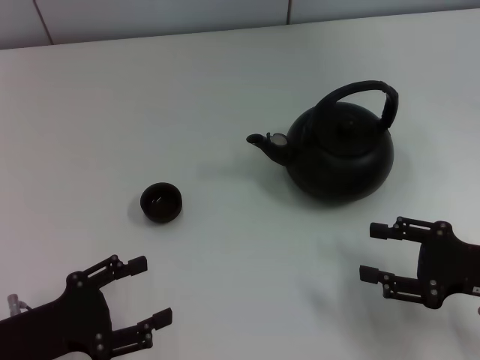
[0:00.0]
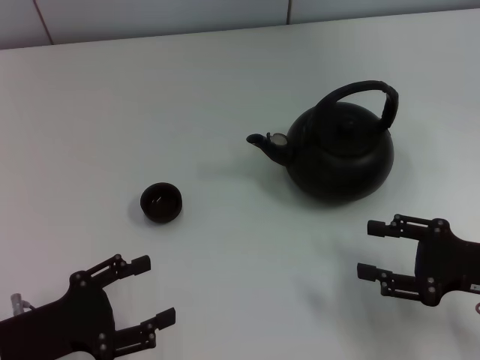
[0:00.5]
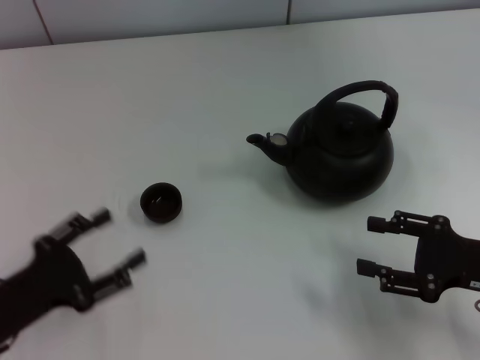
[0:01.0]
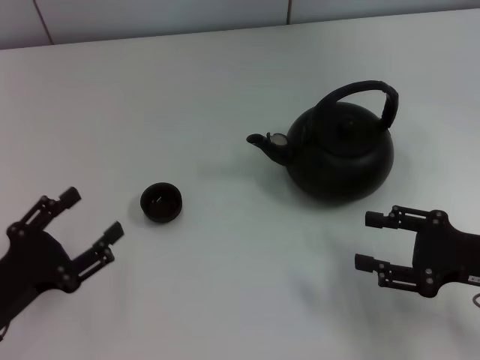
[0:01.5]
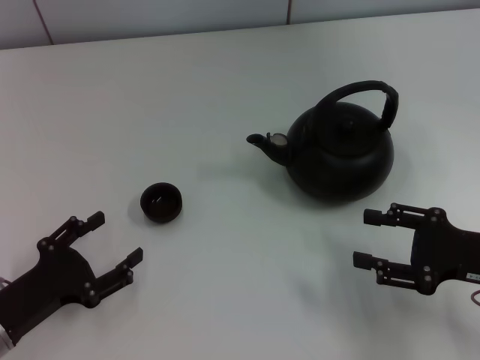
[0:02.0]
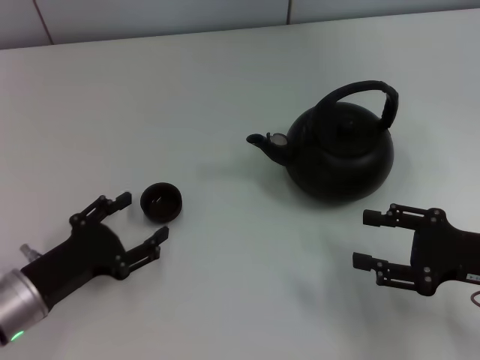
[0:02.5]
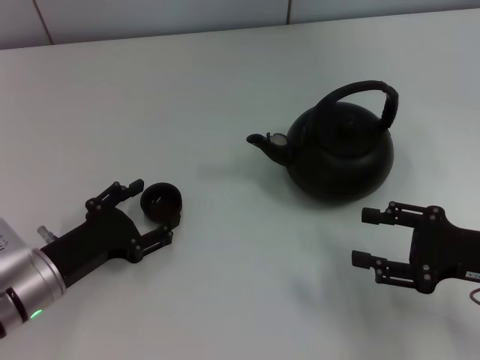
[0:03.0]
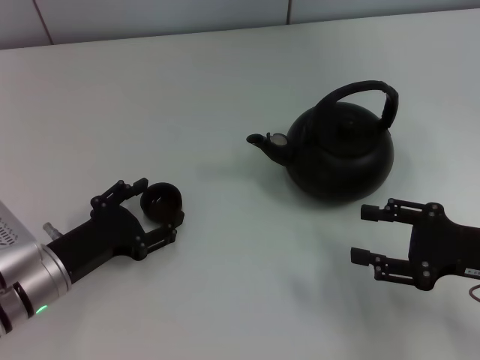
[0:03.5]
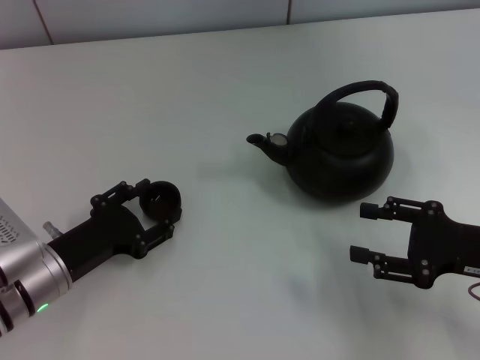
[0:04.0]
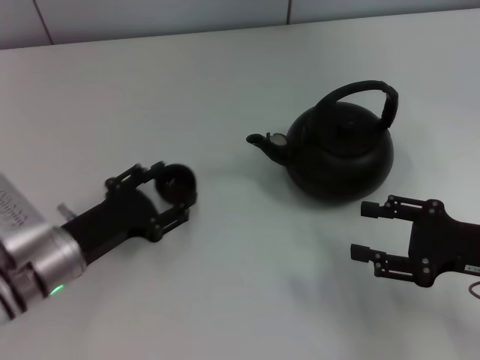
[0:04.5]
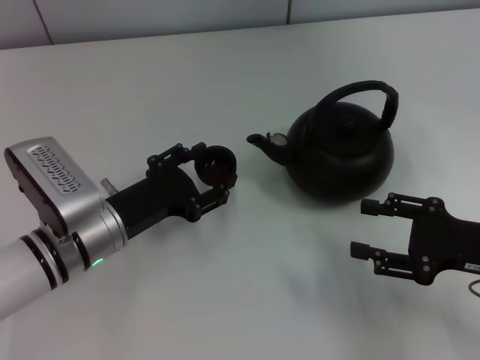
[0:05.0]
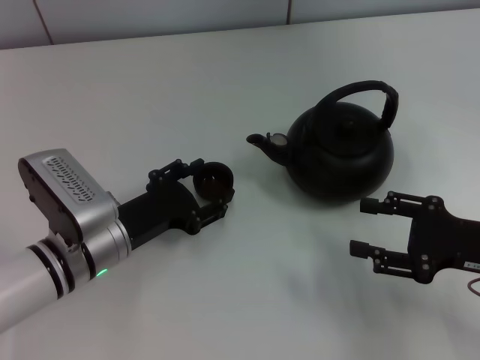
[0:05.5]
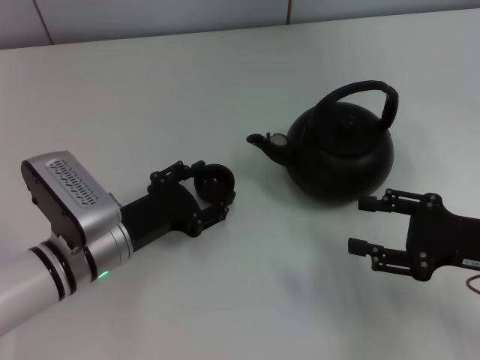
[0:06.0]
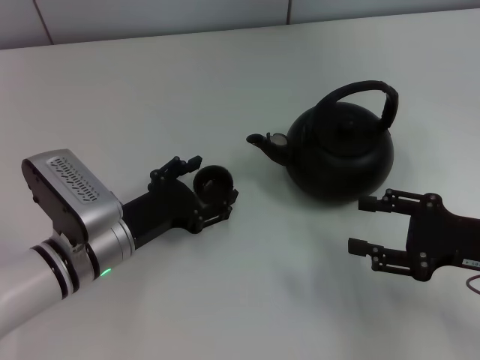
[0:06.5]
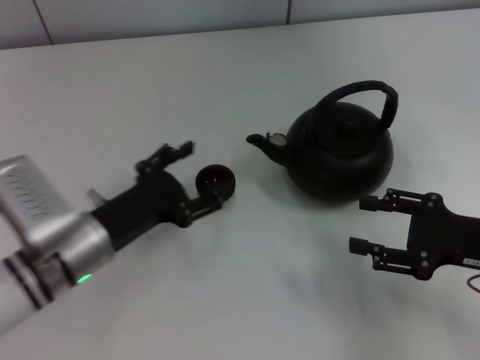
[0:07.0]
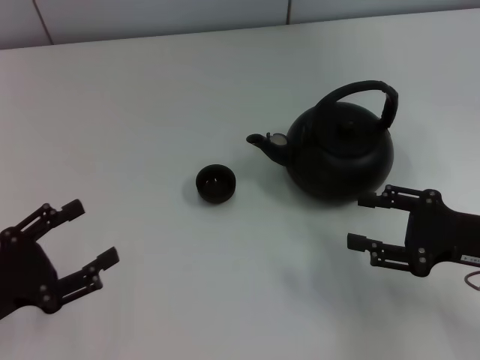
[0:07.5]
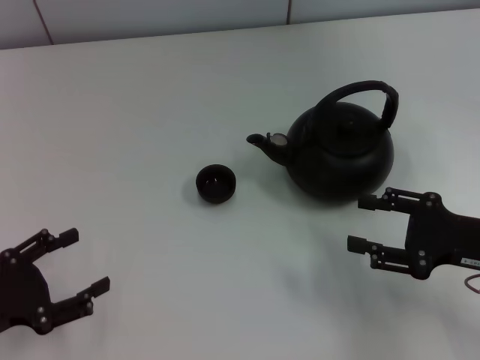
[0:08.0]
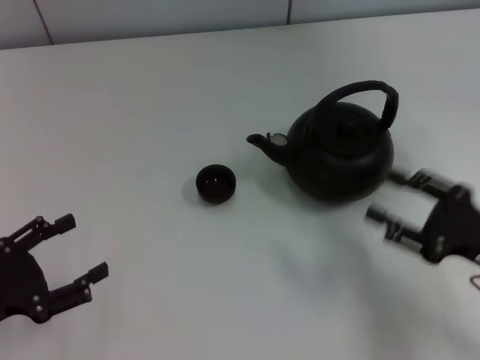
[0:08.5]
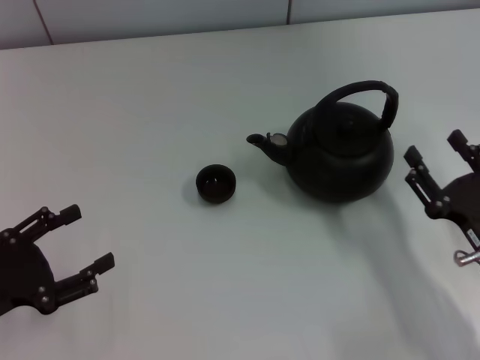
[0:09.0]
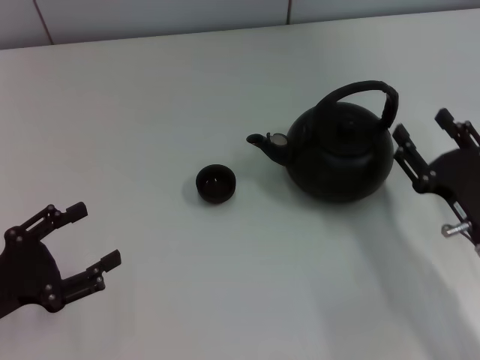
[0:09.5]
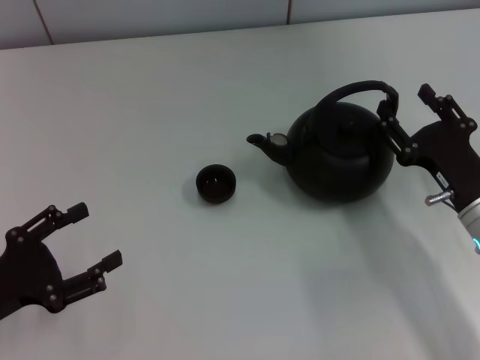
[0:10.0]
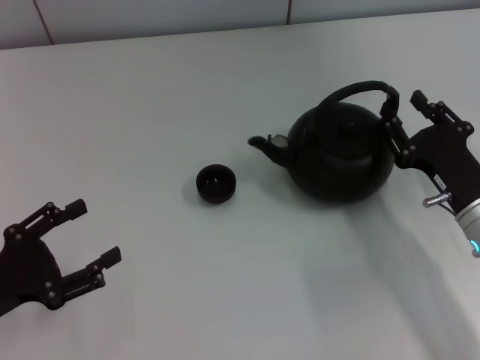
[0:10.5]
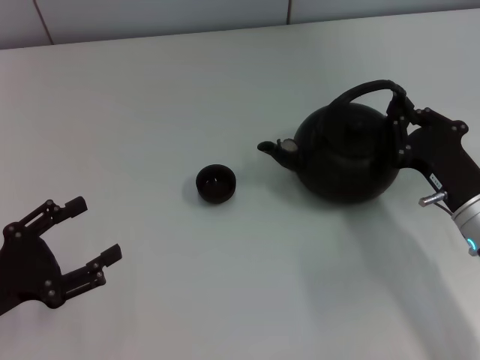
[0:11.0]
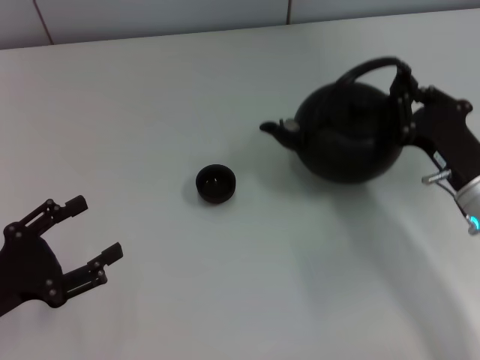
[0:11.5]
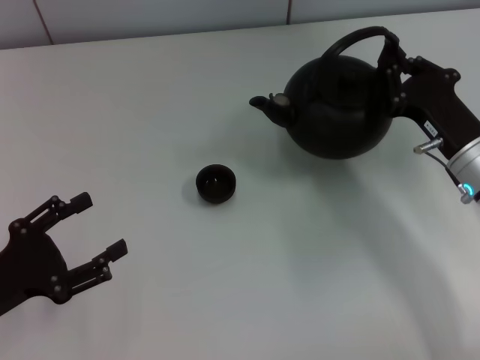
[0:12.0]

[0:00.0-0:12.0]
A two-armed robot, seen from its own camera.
Task of the whole recording: Grasp the handle of the teapot with one hand and pour tea into the teacup.
Step, 0:00.0 to 0:05.0: Pick up the teacup with the left gripper.
Step, 0:05.5 to 0:07.0: Place the teacup in the center of view with the left gripper.
Step, 0:07.5 to 0:12.0: Pick up the teapot with the right gripper.
0:02.0 to 0:04.0: The left gripper shifts roughly 10 cm forward and to the right, and closes its fingers.
0:04.0 to 0:06.0: The left gripper is displaced to the right by some 5 cm.
0:06.0 to 0:08.0: The left gripper moves to the left and backward, some 20 cm, and opens its fingers.
0:08.0 to 0:10.0: The right gripper moves roughly 5 cm.
0:10.0 to 0:12.0: The right gripper travels forward by about 5 cm, and closes up.

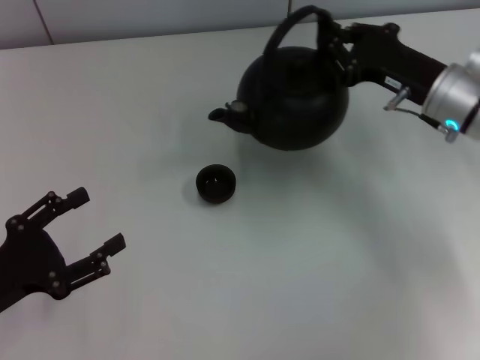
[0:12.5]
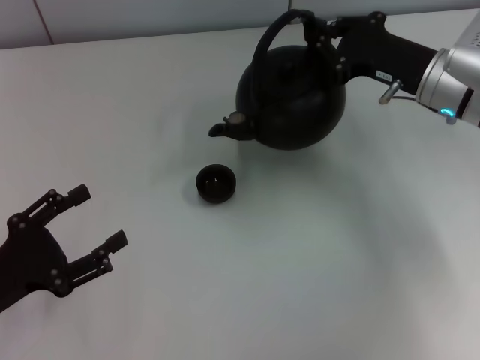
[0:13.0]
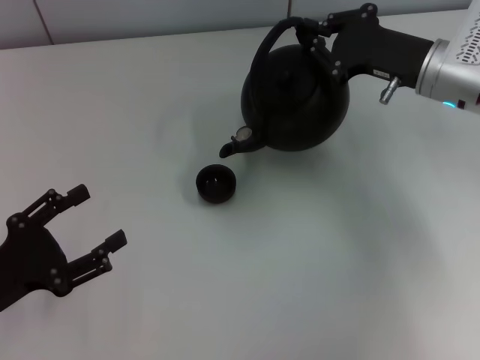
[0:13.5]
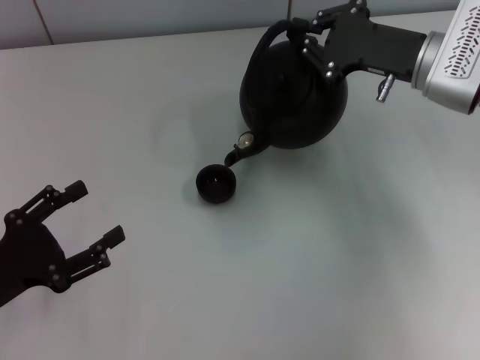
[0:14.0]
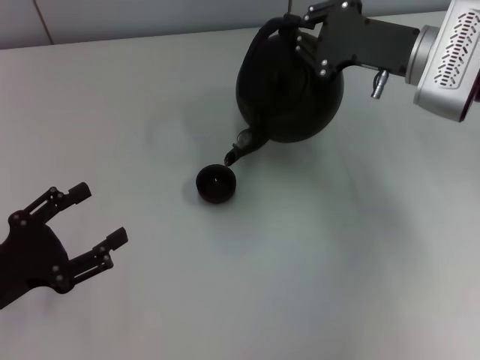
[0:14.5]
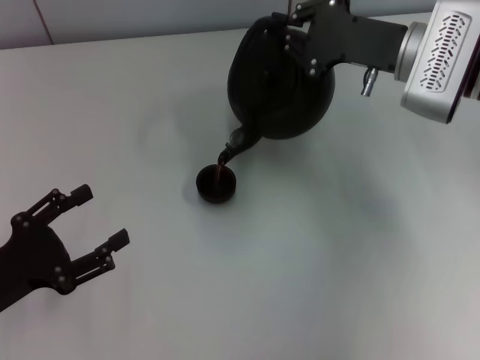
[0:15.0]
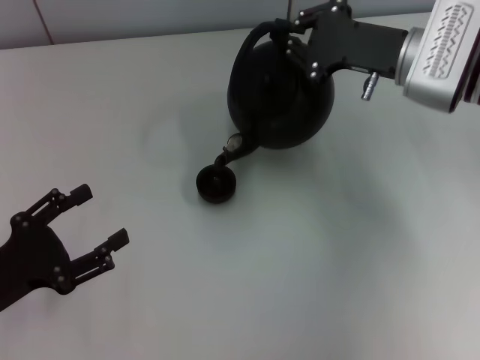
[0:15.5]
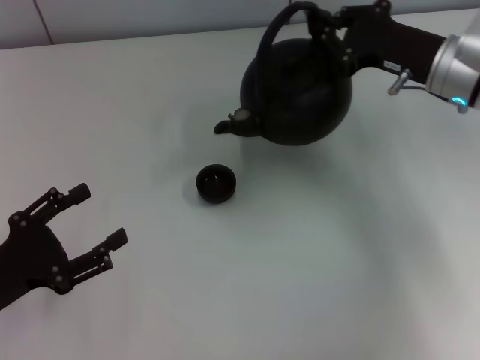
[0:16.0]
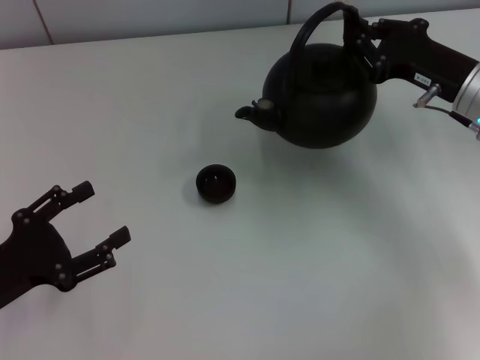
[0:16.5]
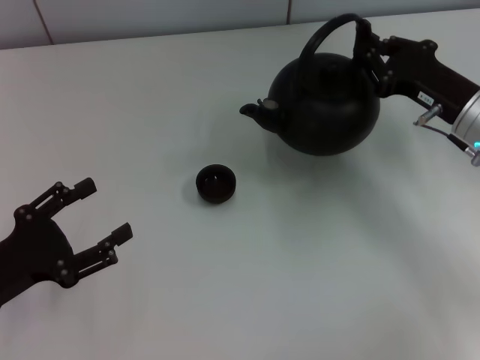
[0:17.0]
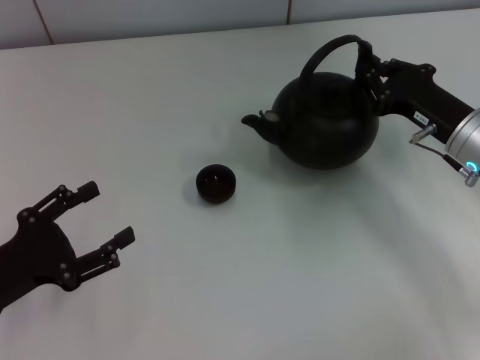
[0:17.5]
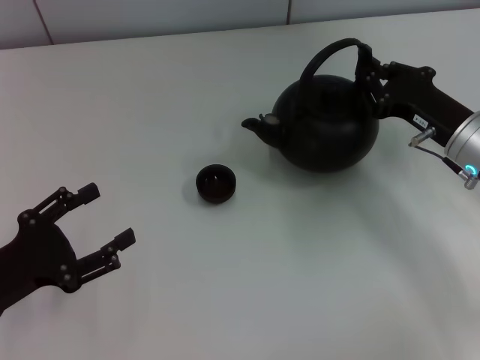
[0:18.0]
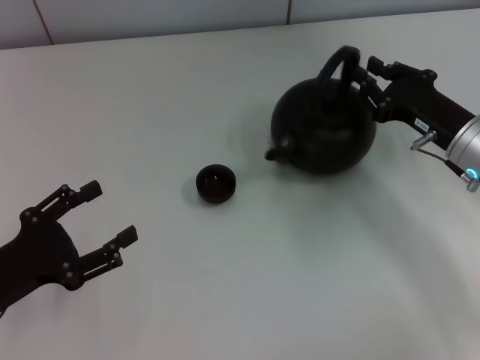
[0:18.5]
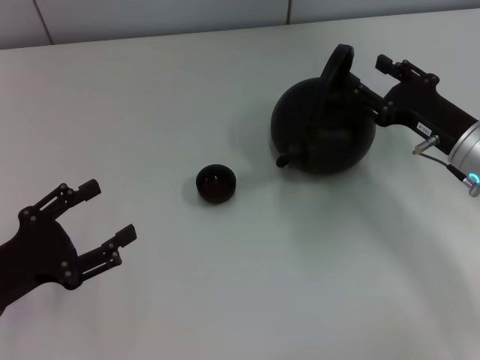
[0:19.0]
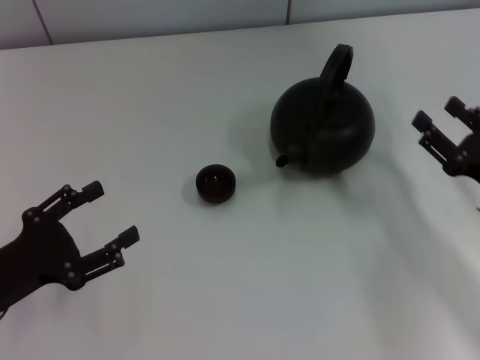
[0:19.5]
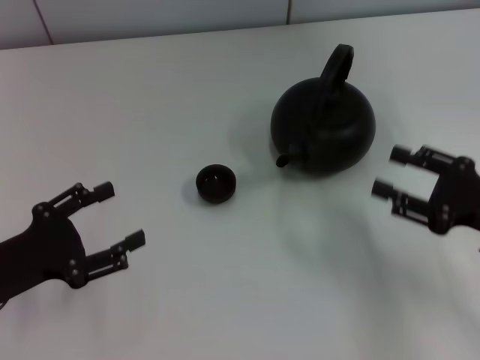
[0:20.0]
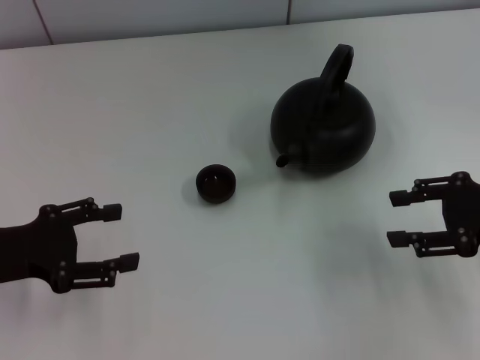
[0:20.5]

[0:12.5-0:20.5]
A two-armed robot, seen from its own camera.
Task of the whole recording: Grasp the handle of the teapot with one hand and pour tea into the teacup.
Step, 0:16.5 to 0:19.0: Put down the teapot with the right gripper.
0:14.5 to 0:16.5: The right gripper shifts by roughly 5 cm.
0:16.5 to 0:18.5: The right gripper heads downward, covering approximately 5 cm.
0:18.5 to 0:20.5: The left gripper shifts about 5 cm forward. The right gripper moves backward, to the right and upward, roughly 10 cm, and opens its fingers.

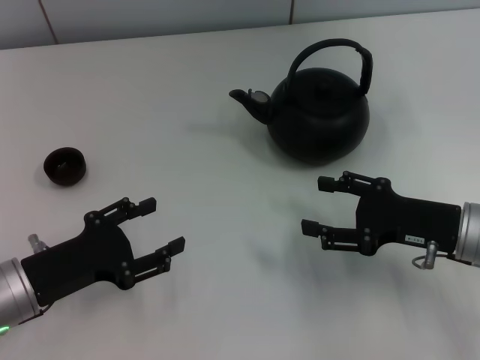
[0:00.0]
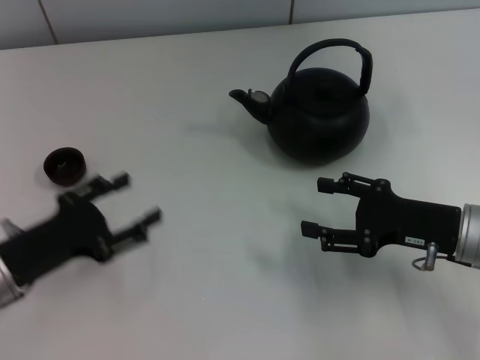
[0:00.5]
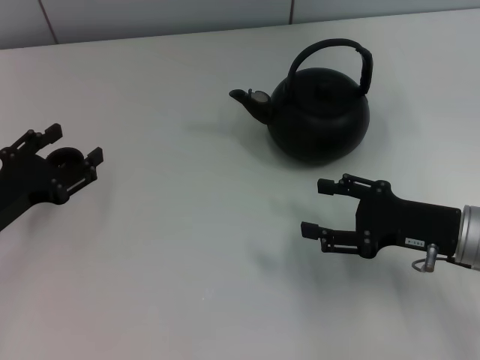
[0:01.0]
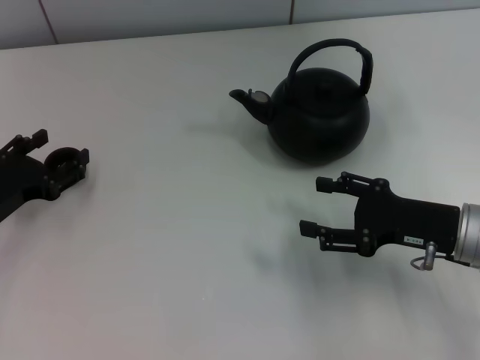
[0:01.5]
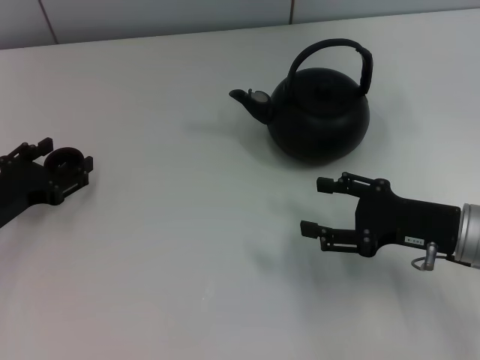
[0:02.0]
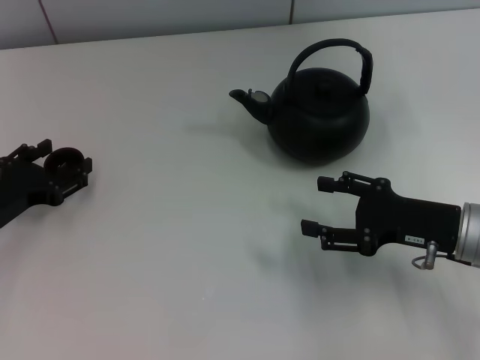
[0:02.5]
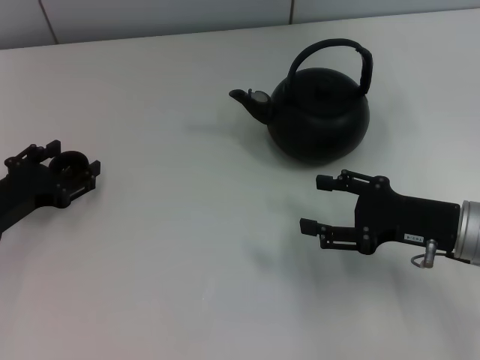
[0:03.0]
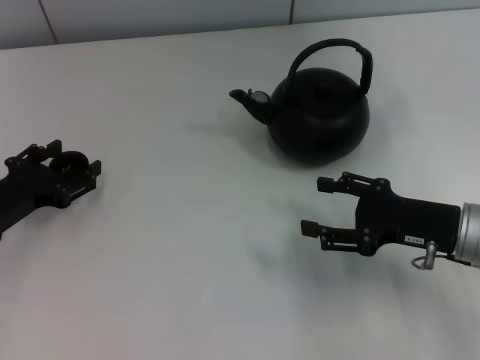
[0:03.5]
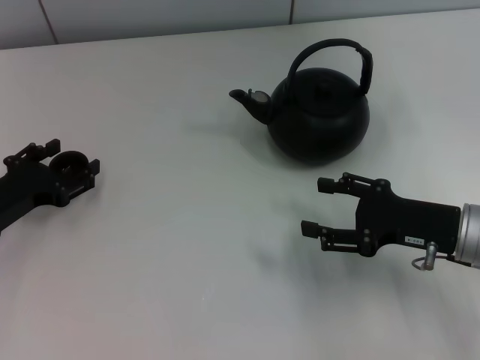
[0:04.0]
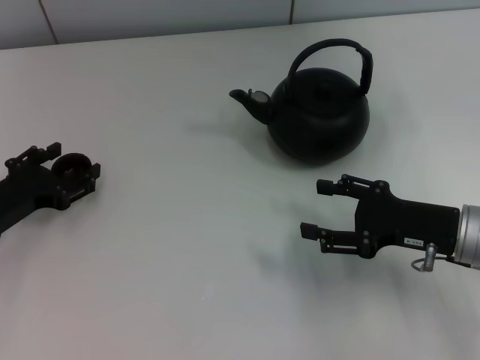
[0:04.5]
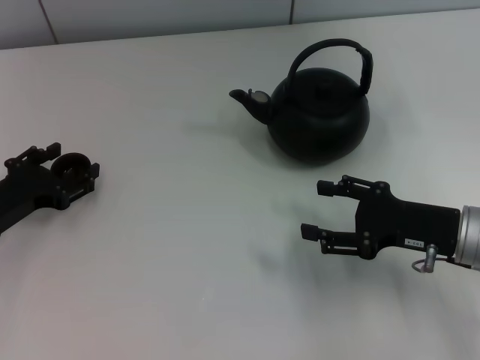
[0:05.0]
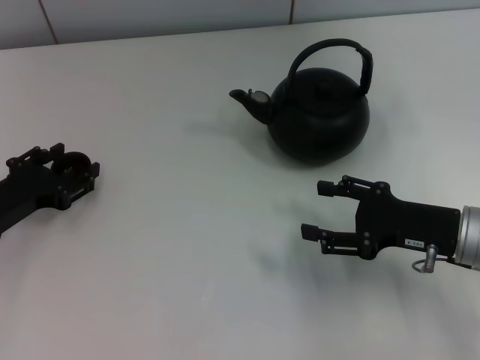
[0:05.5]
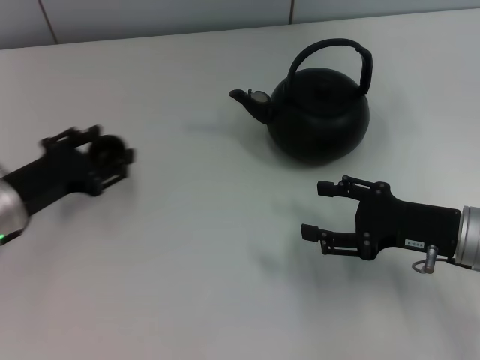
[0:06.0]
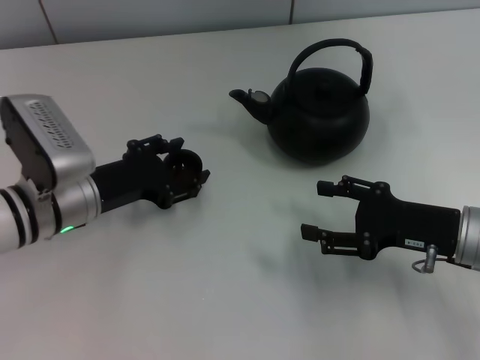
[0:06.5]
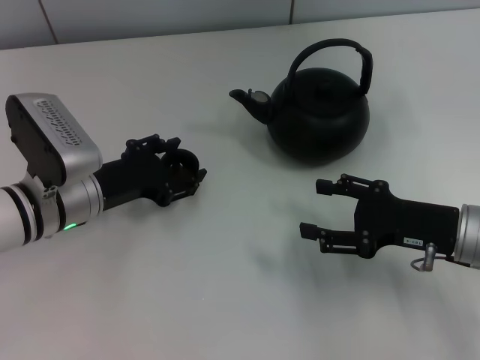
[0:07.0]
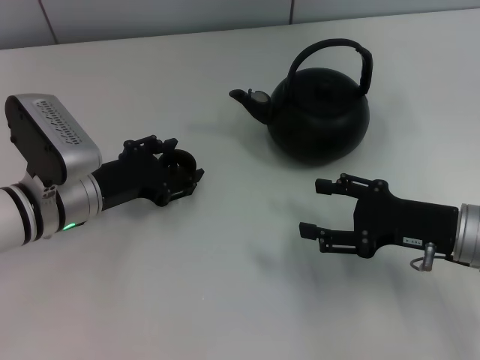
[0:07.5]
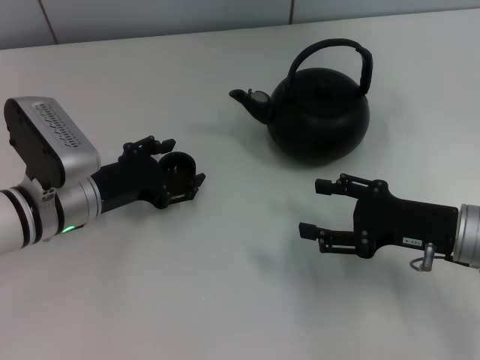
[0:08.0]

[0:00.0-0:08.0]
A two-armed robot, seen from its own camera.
Task of the whole recording: Grasp the handle of the teapot with one hand and pour tea into the teacup.
Step, 0:00.0 to 0:06.0: Pick up the teacup with the left gripper.
0:00.0 to 0:02.0: The left gripper is displaced forward by some 5 cm.
0:02.0 to 0:04.0: Both grippers stay about where they are.
0:04.0 to 0:06.0: The left gripper closes.
0:06.0 to 0:08.0: The left gripper is displaced to the right by some 5 cm.
